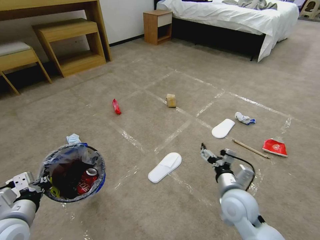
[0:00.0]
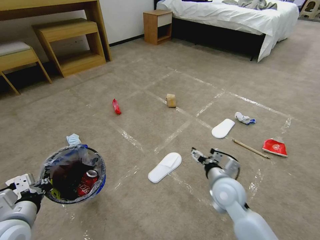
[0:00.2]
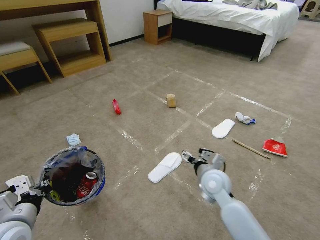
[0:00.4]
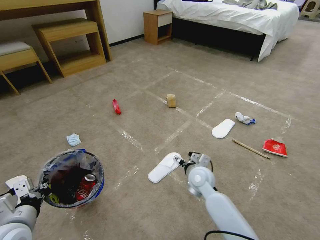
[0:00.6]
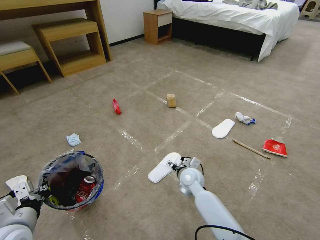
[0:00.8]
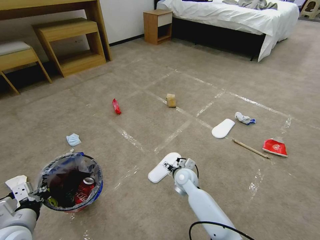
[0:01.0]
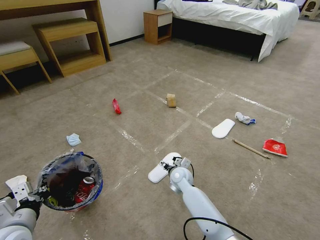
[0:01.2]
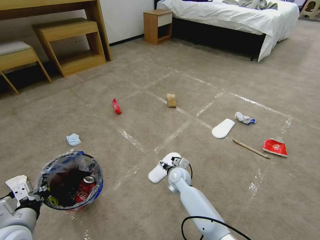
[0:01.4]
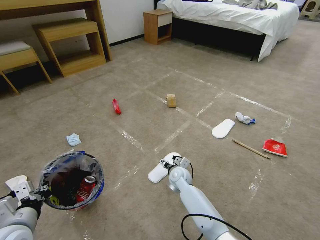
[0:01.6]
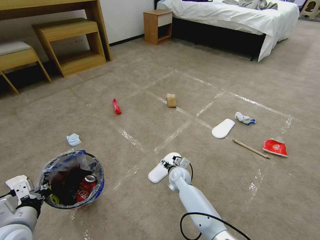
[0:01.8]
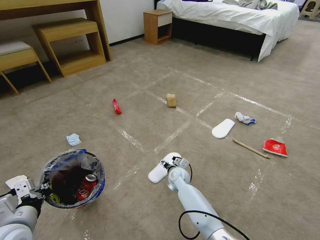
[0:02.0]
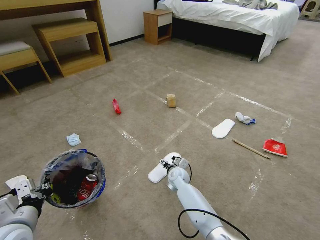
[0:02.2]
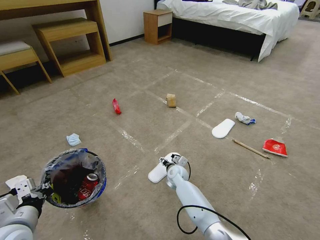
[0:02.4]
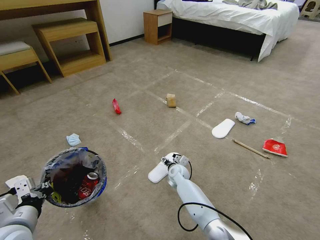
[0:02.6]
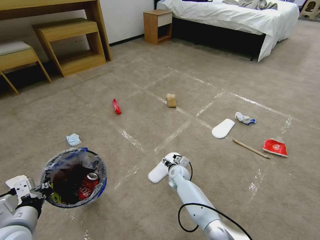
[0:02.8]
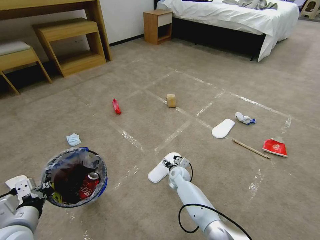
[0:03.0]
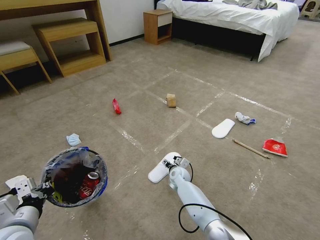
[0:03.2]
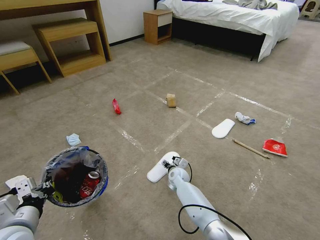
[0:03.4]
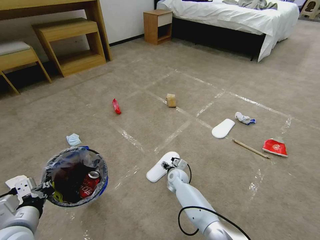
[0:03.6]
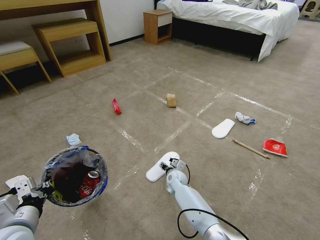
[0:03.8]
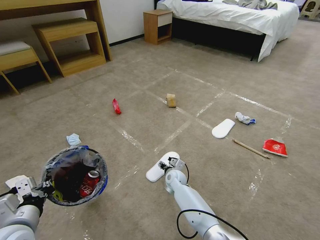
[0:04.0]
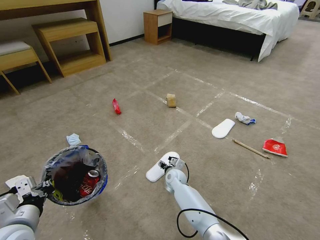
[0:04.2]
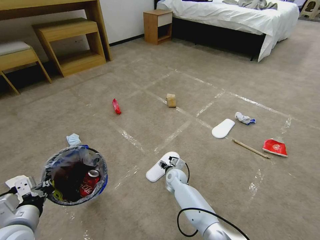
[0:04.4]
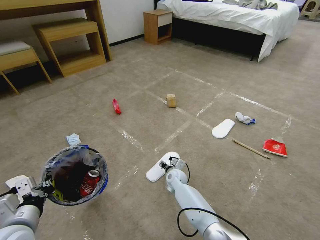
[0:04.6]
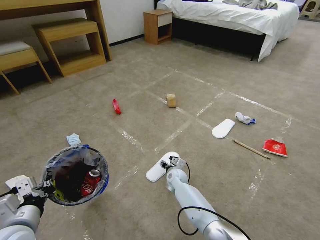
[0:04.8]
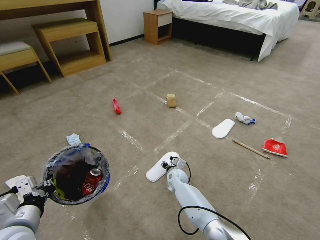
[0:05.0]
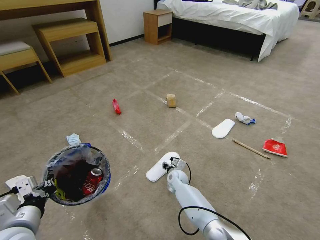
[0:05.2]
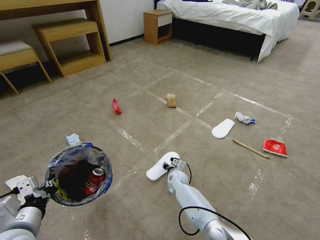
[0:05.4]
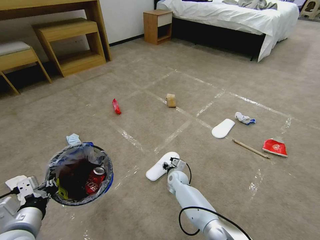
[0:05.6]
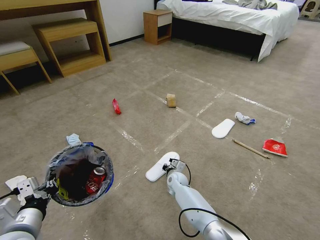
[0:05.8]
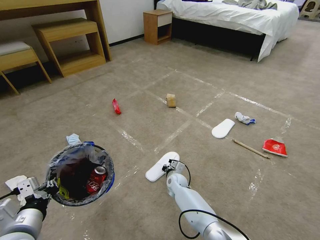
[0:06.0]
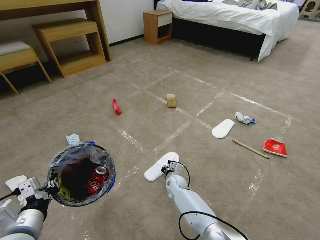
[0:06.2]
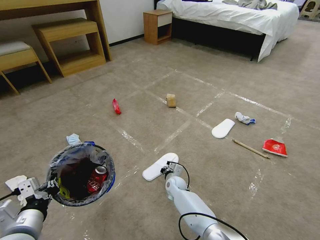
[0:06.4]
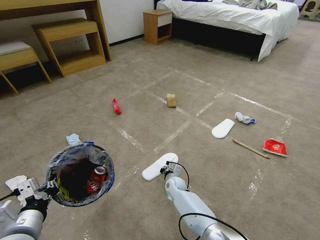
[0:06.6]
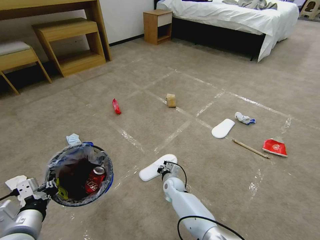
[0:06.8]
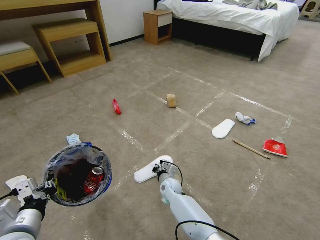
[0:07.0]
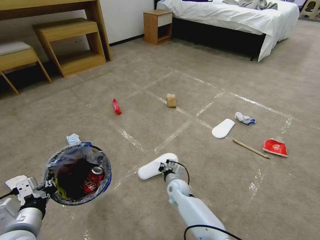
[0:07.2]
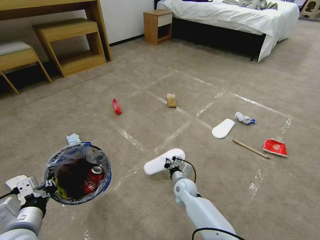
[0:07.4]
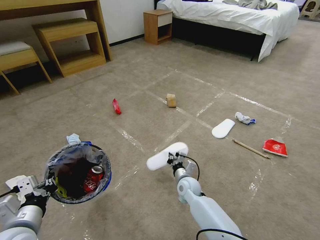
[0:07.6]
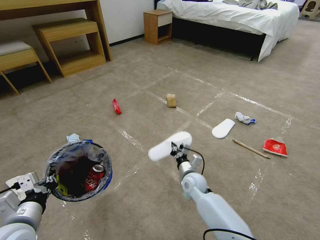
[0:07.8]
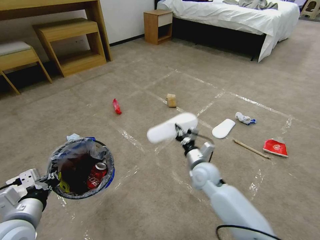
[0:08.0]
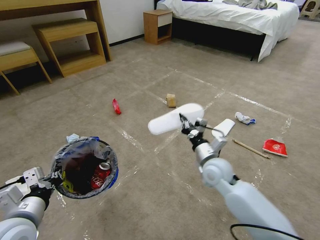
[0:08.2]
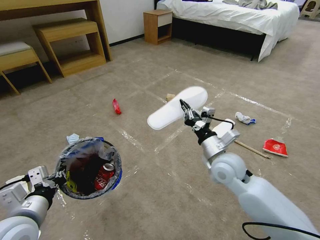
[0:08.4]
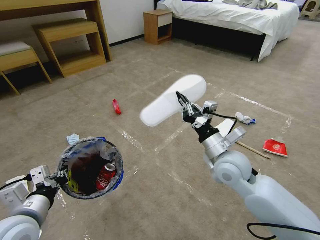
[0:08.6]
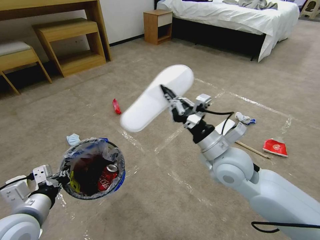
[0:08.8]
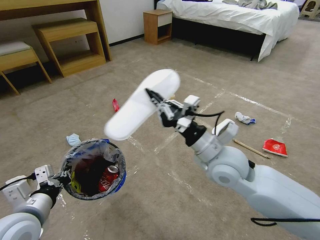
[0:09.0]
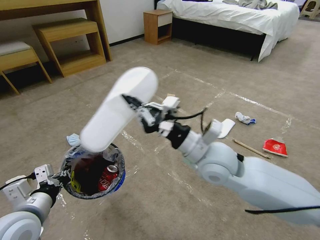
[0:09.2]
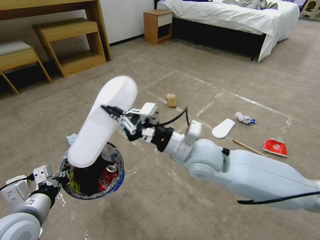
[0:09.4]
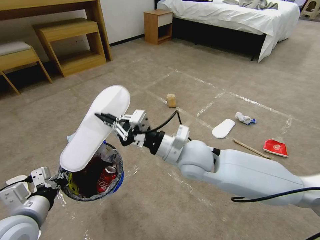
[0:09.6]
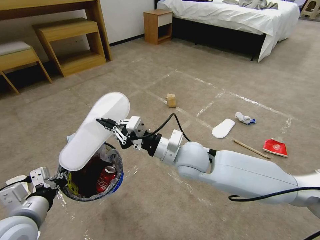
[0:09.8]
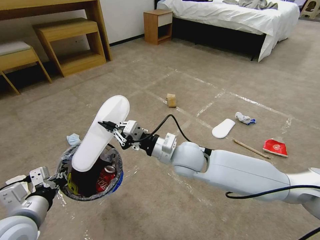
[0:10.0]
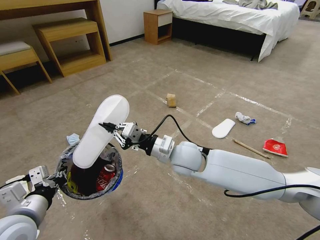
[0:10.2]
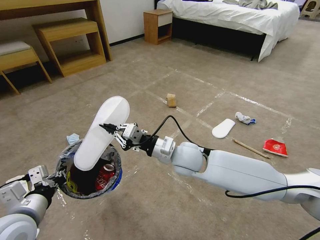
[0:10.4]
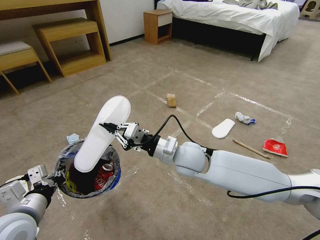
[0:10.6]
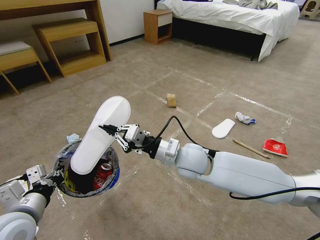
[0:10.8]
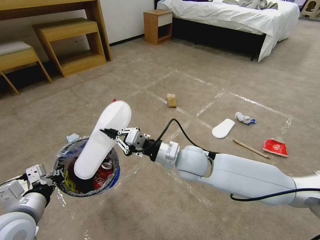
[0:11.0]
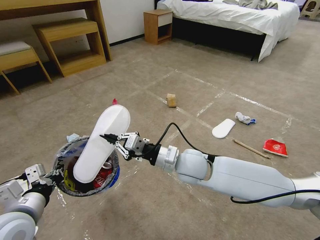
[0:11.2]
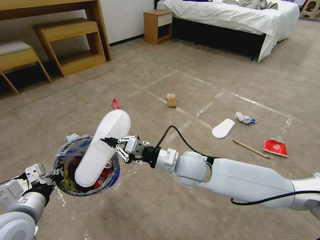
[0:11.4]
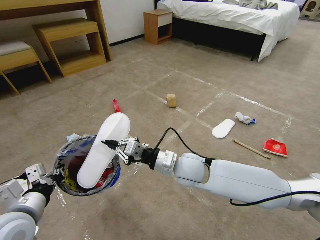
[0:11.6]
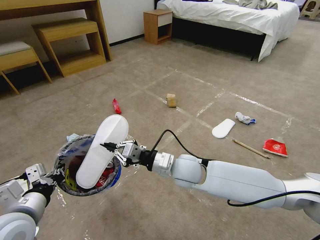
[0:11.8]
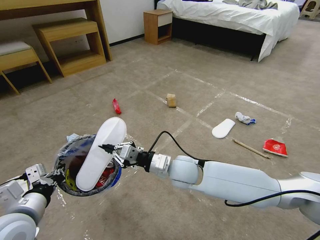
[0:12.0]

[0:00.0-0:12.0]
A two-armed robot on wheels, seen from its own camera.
Task of the whole recording: Pick up the trash bin and place the garbage on the floor into it.
0:00.0 to 0:01.6: The right gripper is displaced forward, downward and to the left by about 25 cm.
0:01.6 to 0:03.0: The right gripper shifts by roughly 5 cm.
0:03.0 to 0:04.4: There are only small adjustments of the grippers.
0:04.4 to 0:06.0: The right gripper closes its fingers.
0:06.0 to 0:07.6: The right gripper heads upward, covering roughly 5 cm.
0:07.6 to 0:09.0: The right gripper travels upward by approximately 30 cm.
0:09.0 to 0:10.4: The right gripper shifts roughly 10 cm to the left and forward.
0:10.4 to 0:12.0: The grippers move only a little.

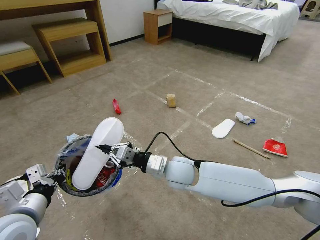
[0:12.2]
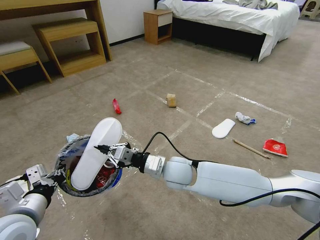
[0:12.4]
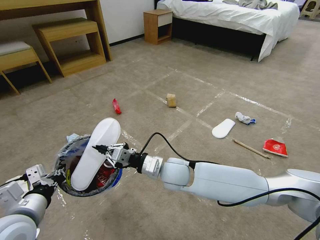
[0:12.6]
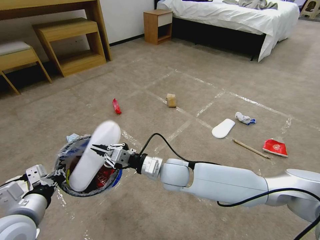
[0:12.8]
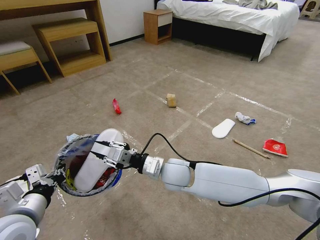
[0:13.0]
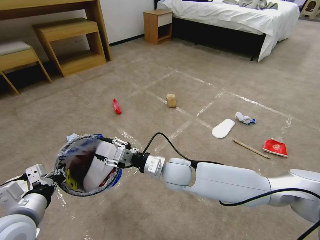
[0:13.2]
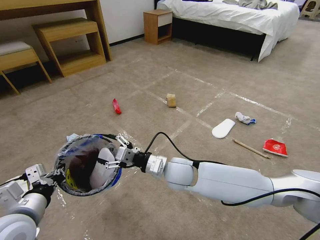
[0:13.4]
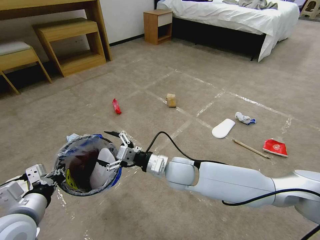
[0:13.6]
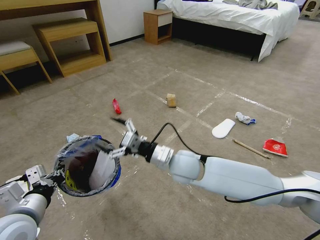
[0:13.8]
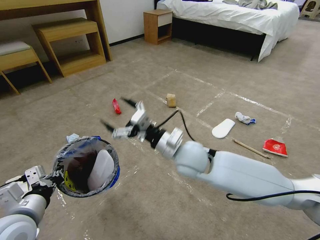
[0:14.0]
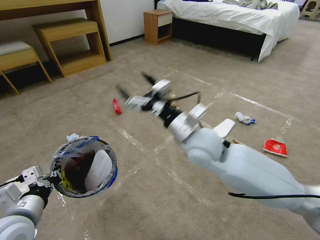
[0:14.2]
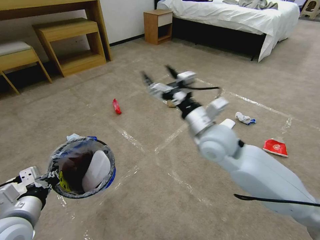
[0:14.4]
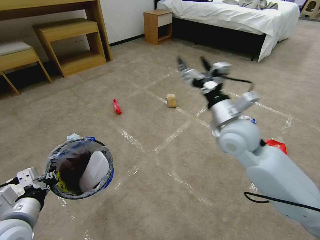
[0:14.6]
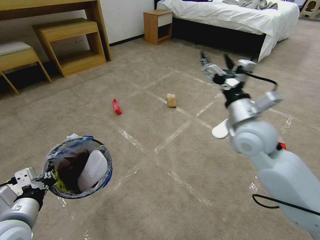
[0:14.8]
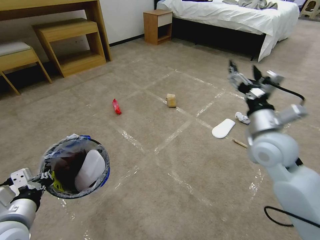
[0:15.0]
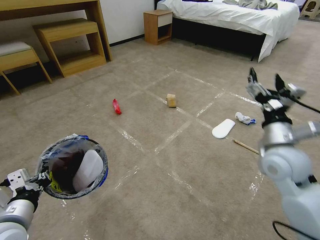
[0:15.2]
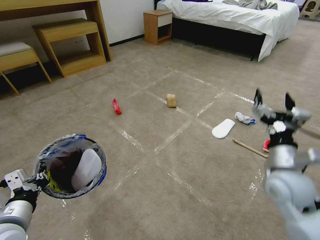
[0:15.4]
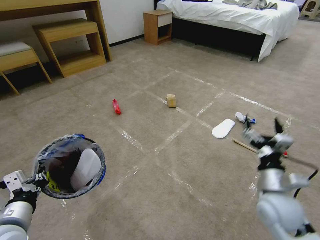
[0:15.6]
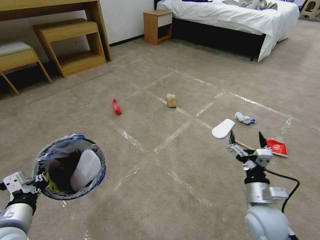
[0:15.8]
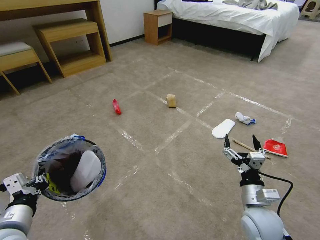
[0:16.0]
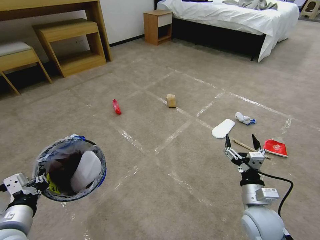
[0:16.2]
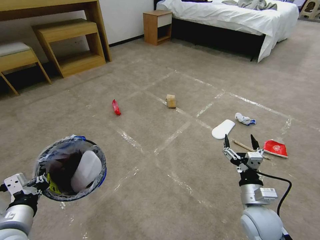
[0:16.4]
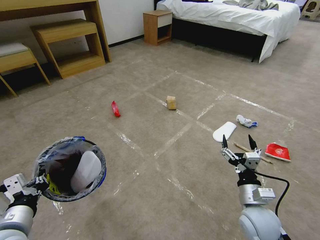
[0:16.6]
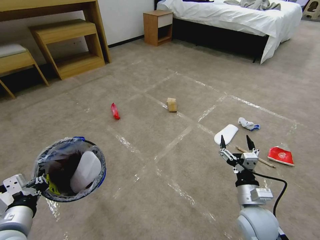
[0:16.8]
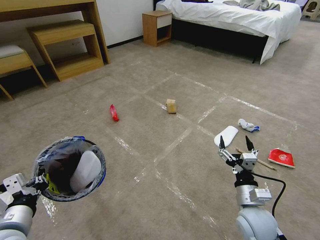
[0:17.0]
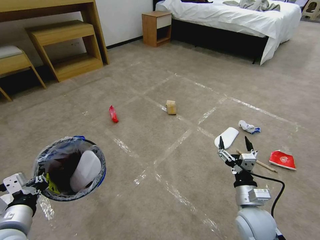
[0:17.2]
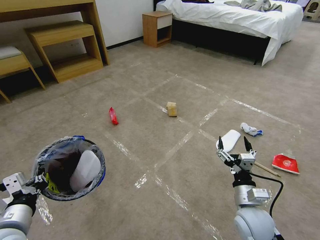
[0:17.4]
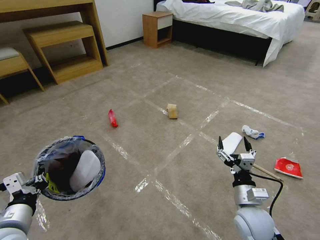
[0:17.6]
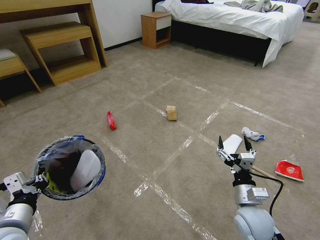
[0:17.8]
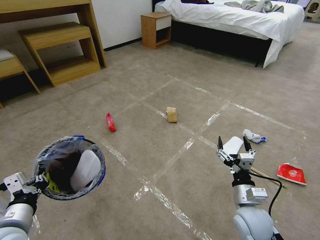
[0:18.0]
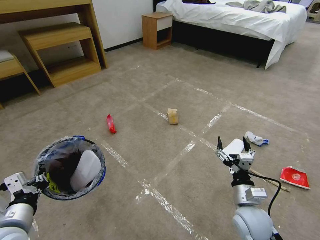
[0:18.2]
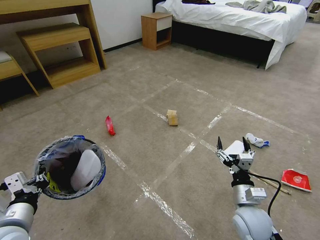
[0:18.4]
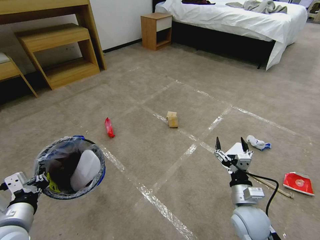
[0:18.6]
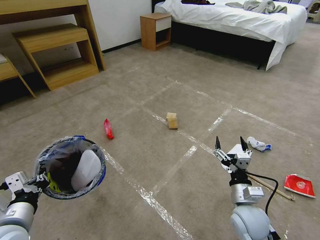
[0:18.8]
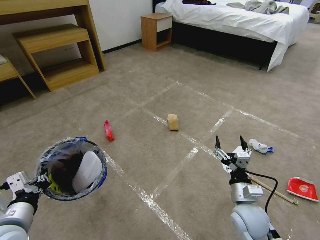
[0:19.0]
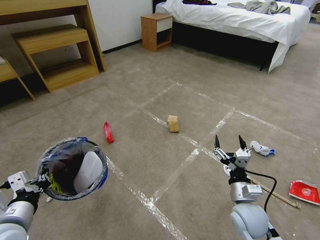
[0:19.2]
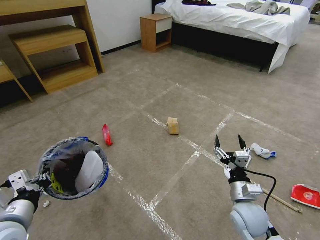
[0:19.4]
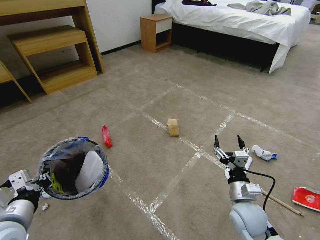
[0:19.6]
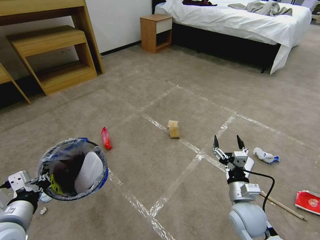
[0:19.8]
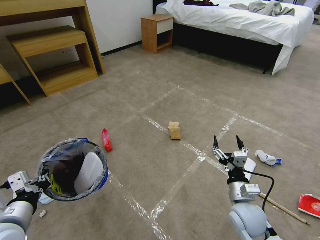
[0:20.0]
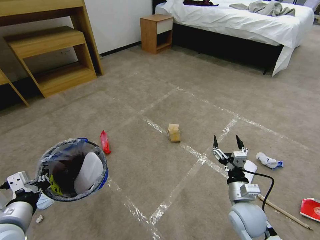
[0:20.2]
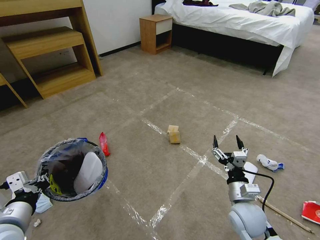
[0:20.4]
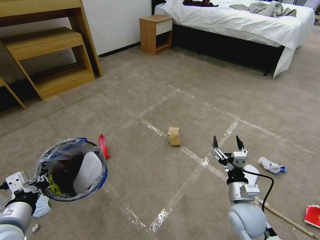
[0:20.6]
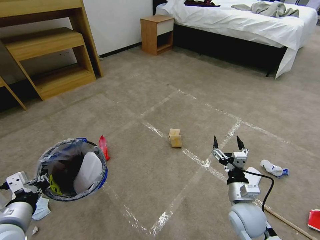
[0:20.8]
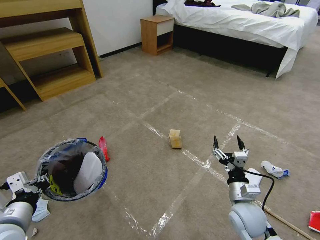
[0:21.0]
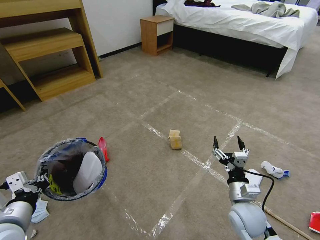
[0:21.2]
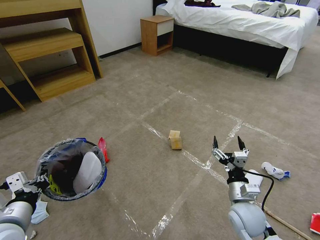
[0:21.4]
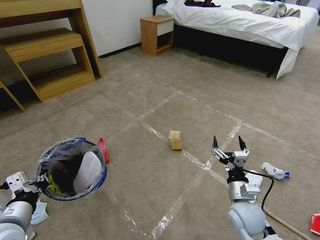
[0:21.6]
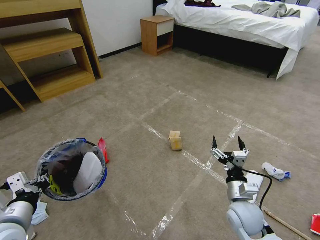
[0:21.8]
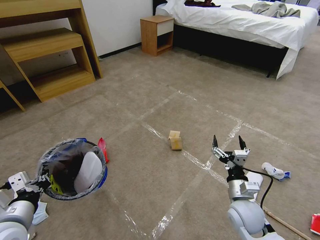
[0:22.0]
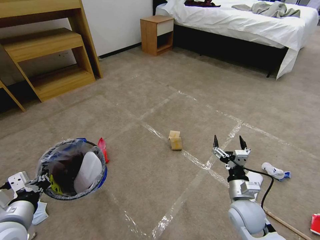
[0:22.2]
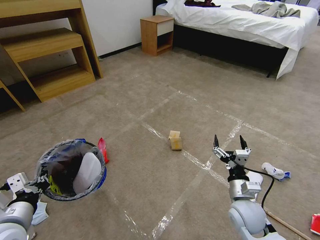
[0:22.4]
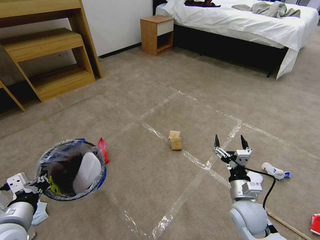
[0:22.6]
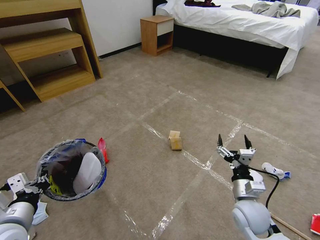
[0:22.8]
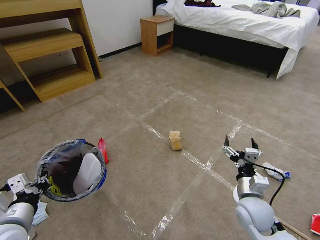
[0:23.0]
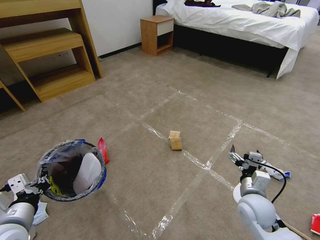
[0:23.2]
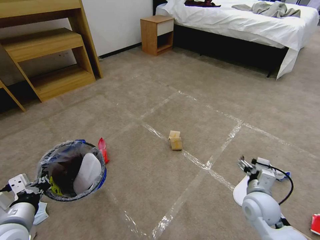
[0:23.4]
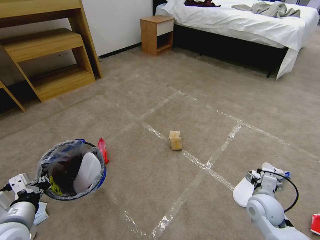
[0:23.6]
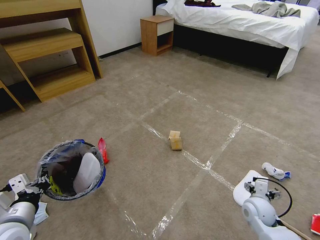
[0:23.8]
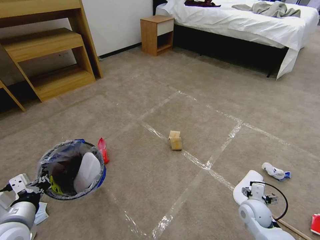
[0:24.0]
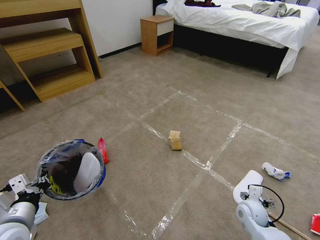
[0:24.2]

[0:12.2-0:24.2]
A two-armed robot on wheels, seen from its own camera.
Task of the whole recording: Pick up the trash bin and place the garbage on the floor into it.
0:12.2 to 0:13.8: The right gripper opens.
0:13.8 to 0:15.2: The right gripper shifts about 25 cm to the right.
0:15.2 to 0:16.6: The right gripper is displaced downward and backward by approximately 20 cm.
0:19.8 to 0:22.6: The two grippers keep their place.
0:22.6 to 0:24.2: The right gripper goes some 10 cm downward and to the right.
